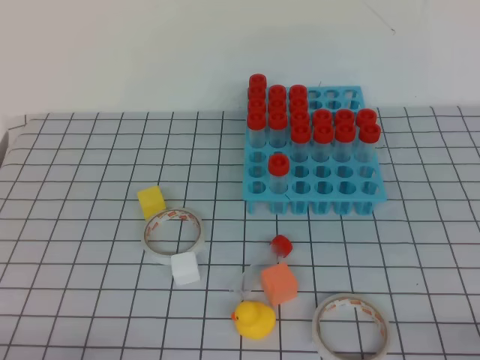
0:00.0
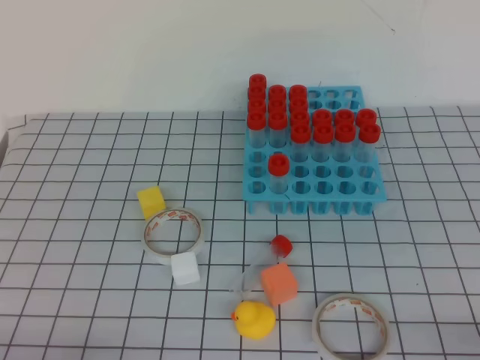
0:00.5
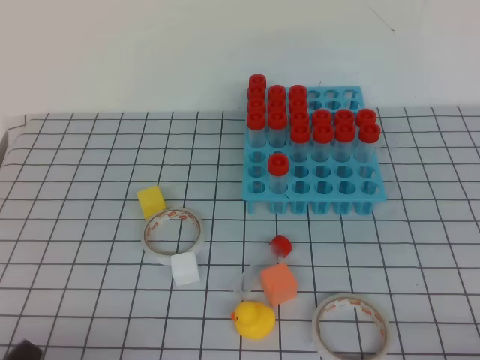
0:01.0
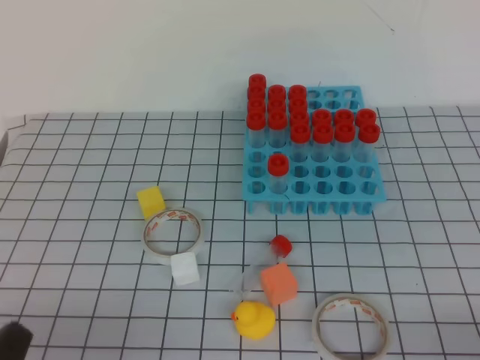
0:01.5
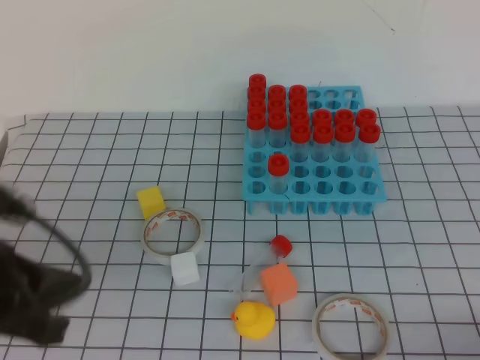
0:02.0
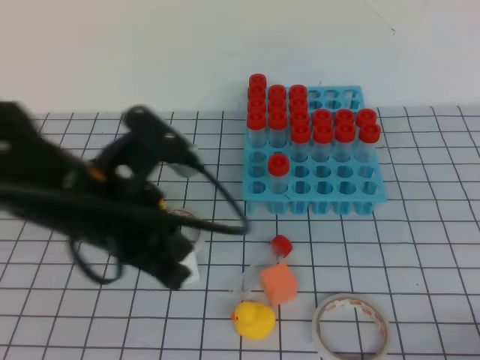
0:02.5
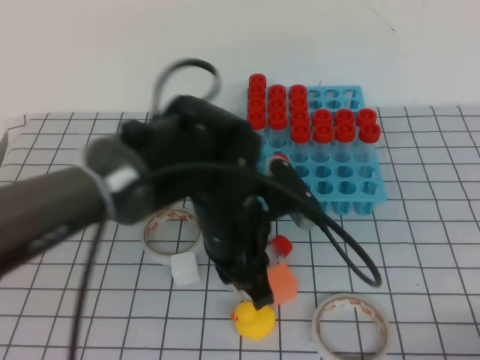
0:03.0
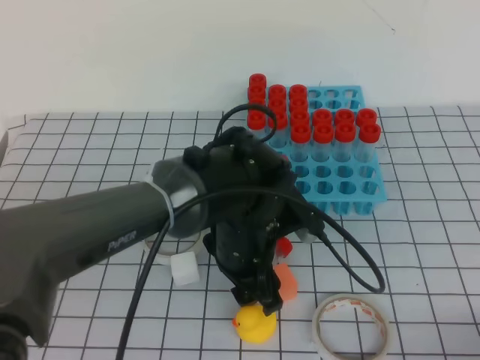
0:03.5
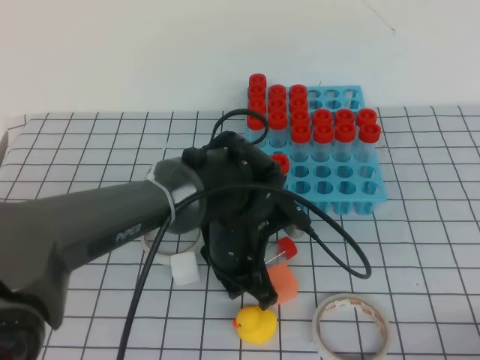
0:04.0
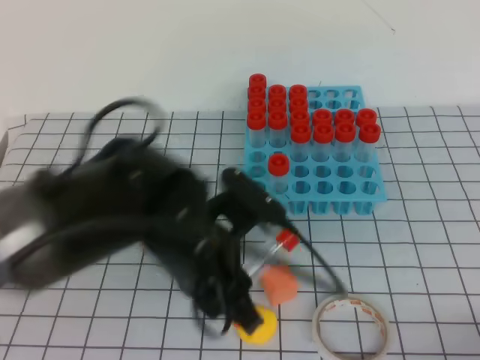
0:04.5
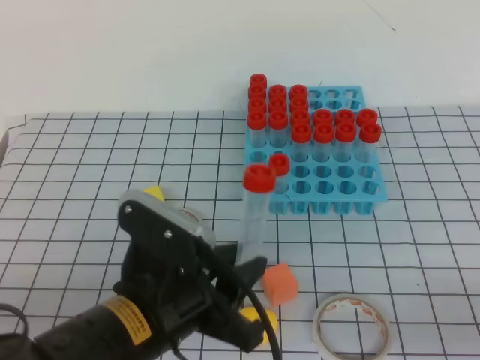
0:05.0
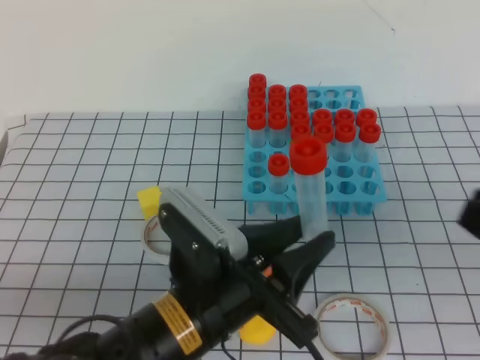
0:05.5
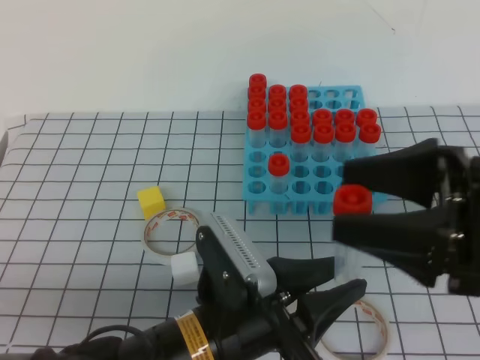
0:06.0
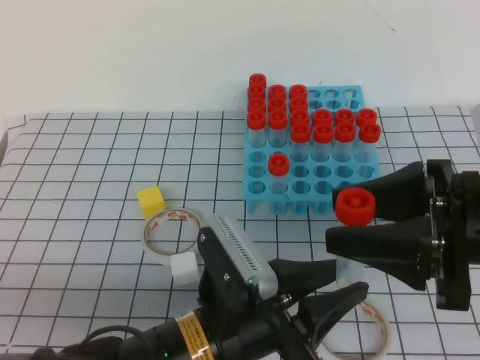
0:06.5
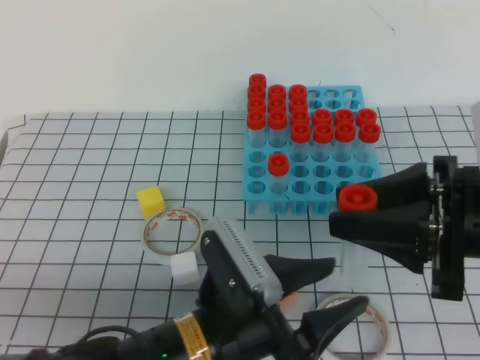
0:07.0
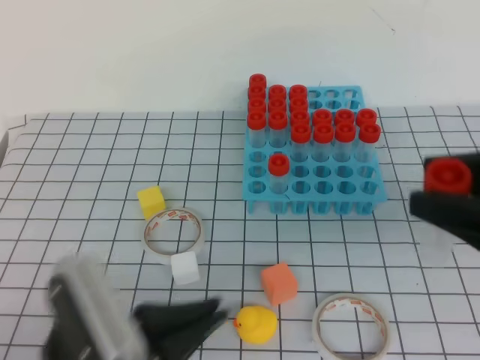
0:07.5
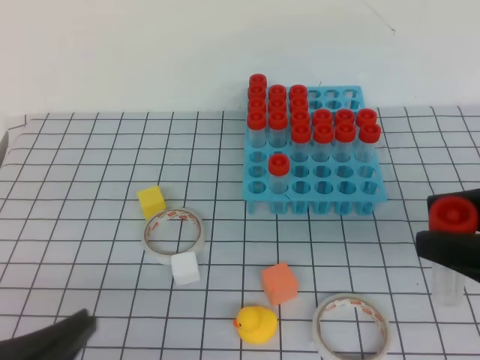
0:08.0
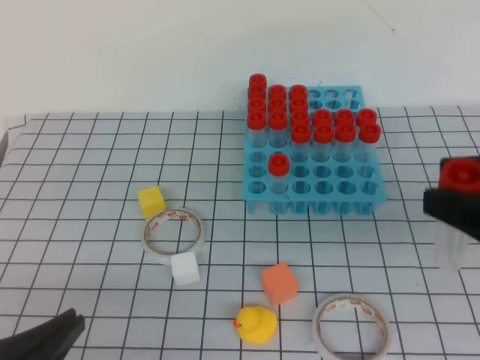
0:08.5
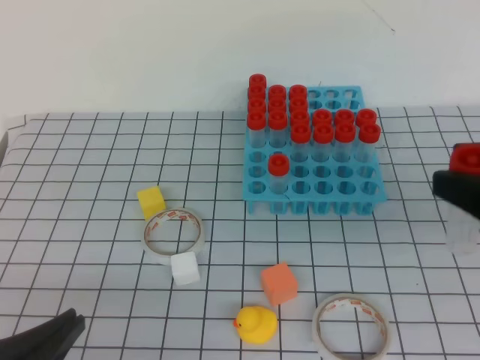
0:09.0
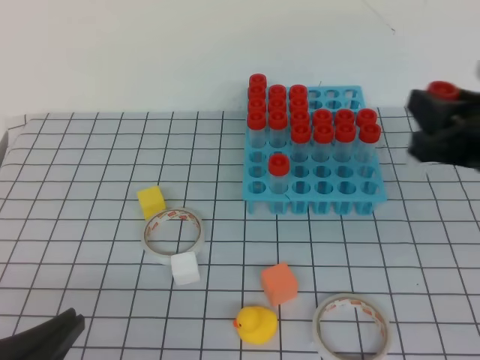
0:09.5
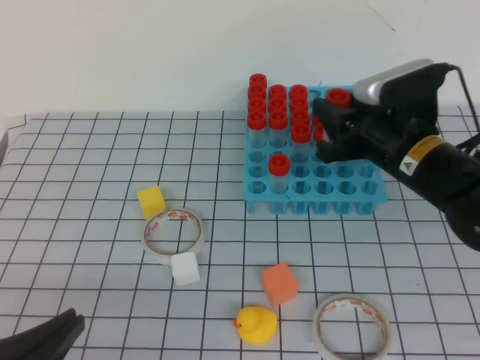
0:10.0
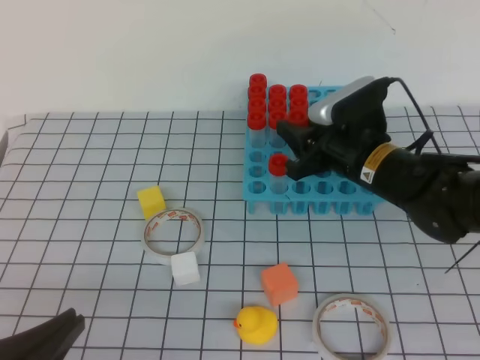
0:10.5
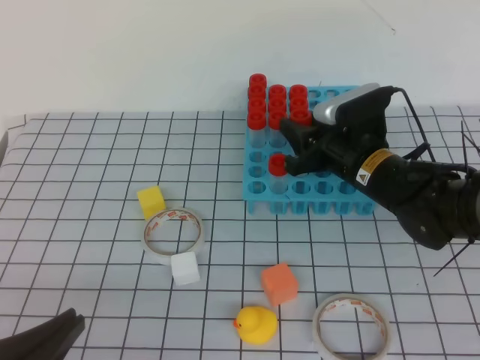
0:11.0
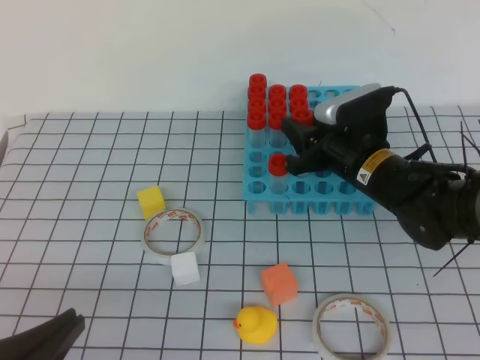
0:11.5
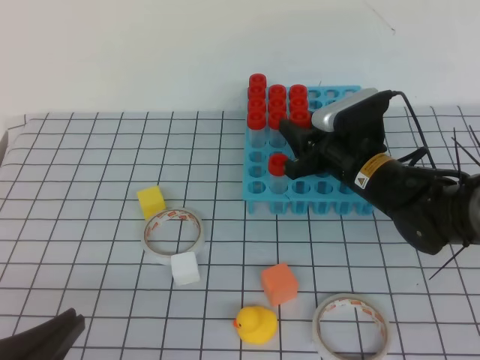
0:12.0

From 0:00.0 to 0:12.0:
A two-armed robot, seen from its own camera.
From 0:00.0 to 0:02.0: The left gripper heads upward and forward, covering some 15 cm.
From 0:02.0 to 0:04.0: The left gripper heads to the right, forward and downward, covering approximately 30 cm, and opens.
From 0:04.0 to 0:06.0: The right gripper is displaced forward, upward and to the left by about 20 cm, and opens its fingers. Meanwhile the left gripper is displaced backward by approximately 15 cm.
From 0:06.0 to 0:08.0: The left gripper goes roughly 20 cm to the left and backward, and closes its fingers, while the right gripper travels backward by roughly 5 cm, and closes up.
From 0:08.0 to 0:10.0: The right gripper travels forward and downward by about 20 cm.
From 0:10.0 to 0:12.0: The right gripper moves downward, some 5 cm.

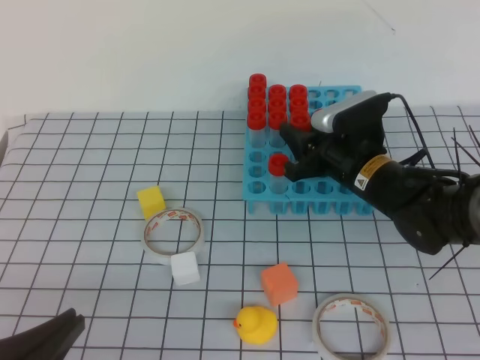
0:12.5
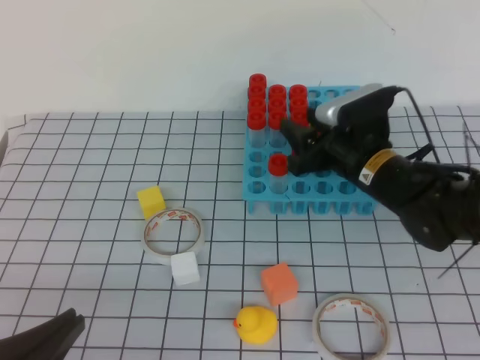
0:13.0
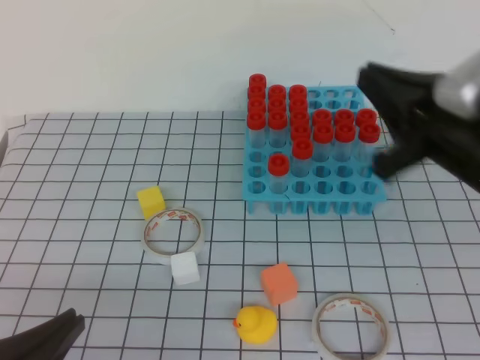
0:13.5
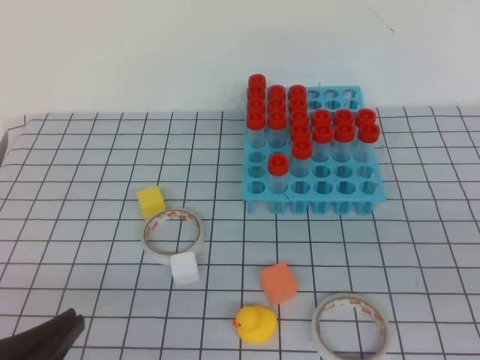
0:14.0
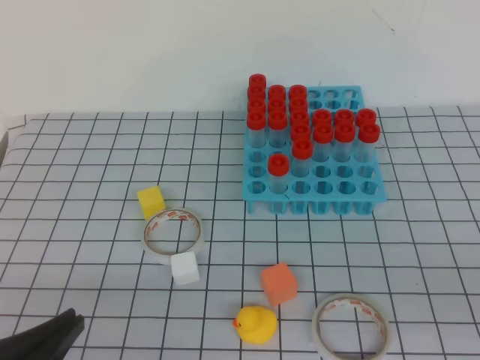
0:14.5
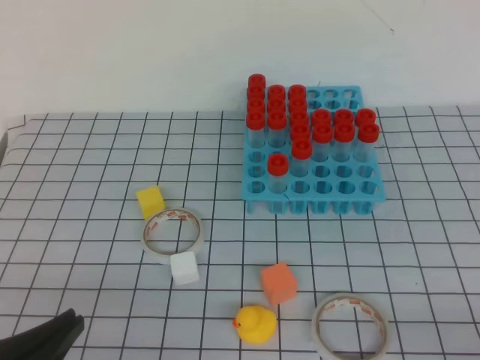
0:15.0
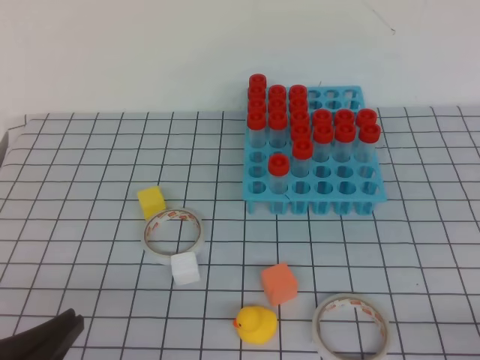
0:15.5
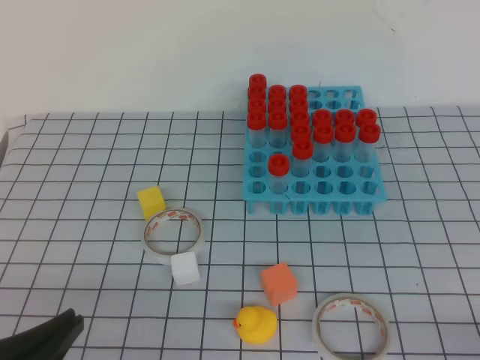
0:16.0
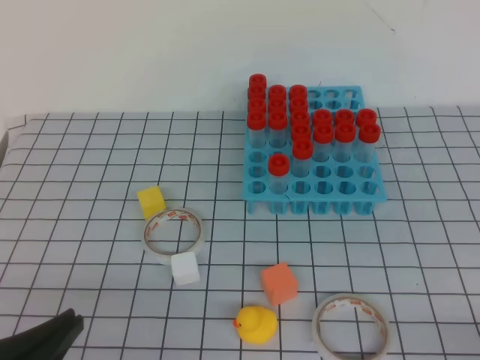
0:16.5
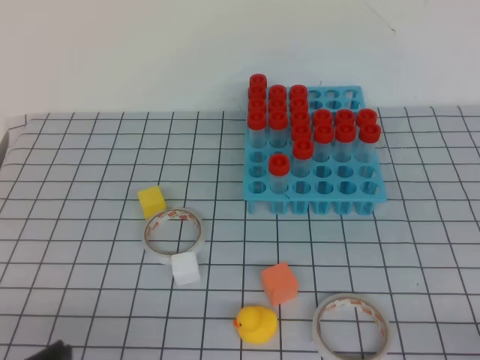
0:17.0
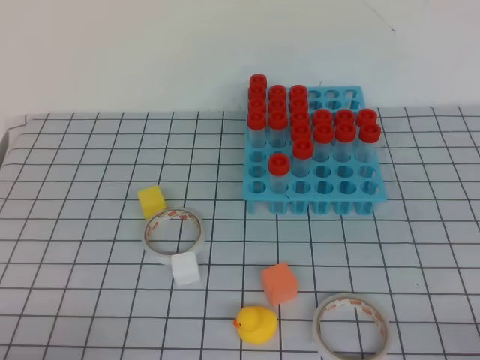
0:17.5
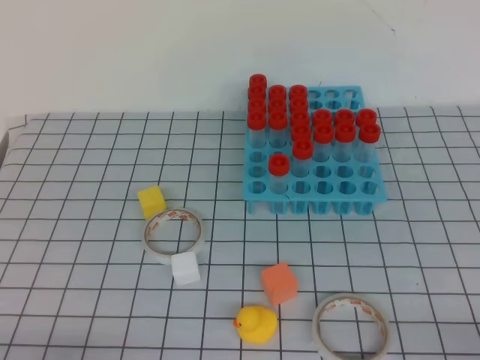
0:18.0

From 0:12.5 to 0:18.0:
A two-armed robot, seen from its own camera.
From 0:12.5 to 0:14.5: The right gripper goes some 40 cm backward and to the right, and closes up.
From 0:16.0 to 0:18.0: The left gripper moves downward and to the left, approximately 10 cm.
